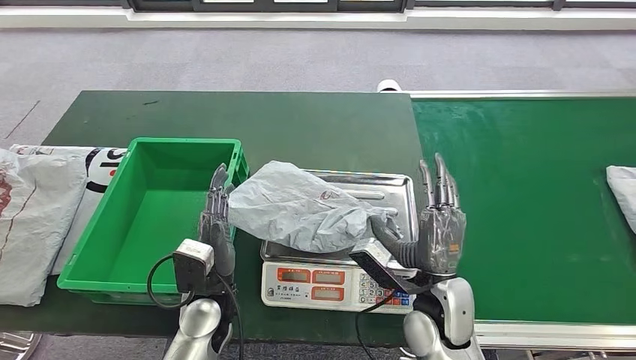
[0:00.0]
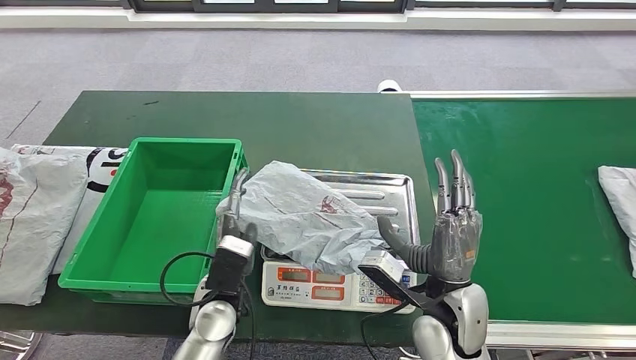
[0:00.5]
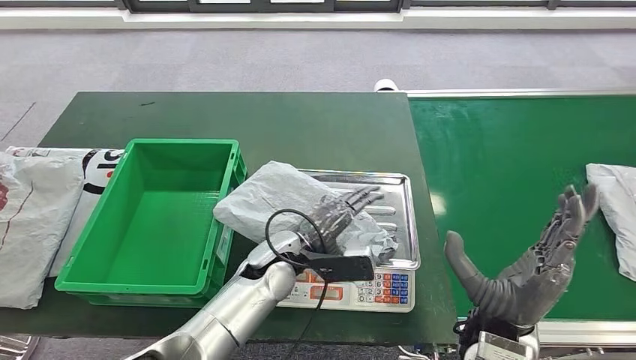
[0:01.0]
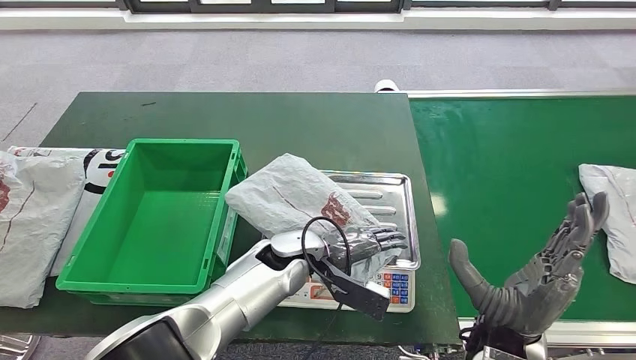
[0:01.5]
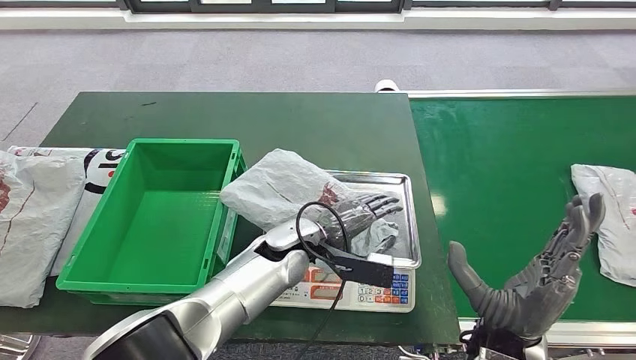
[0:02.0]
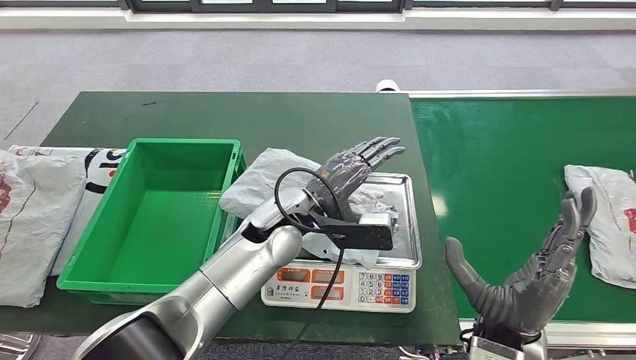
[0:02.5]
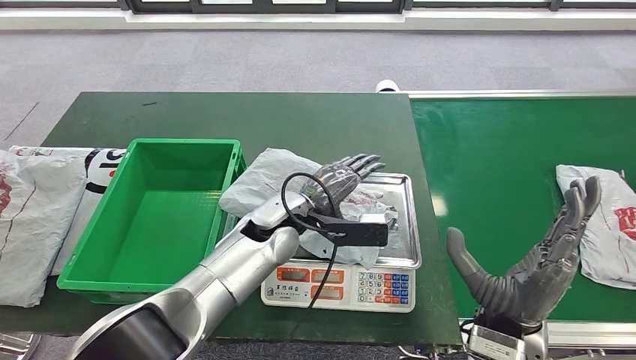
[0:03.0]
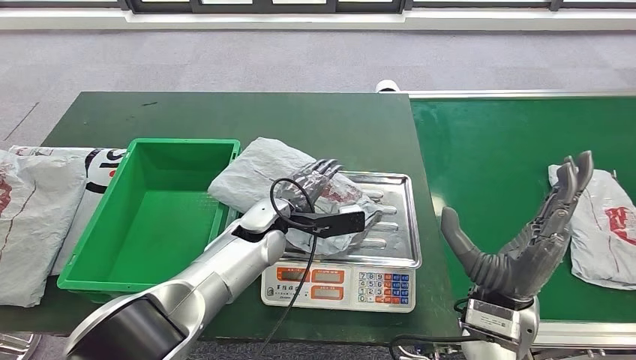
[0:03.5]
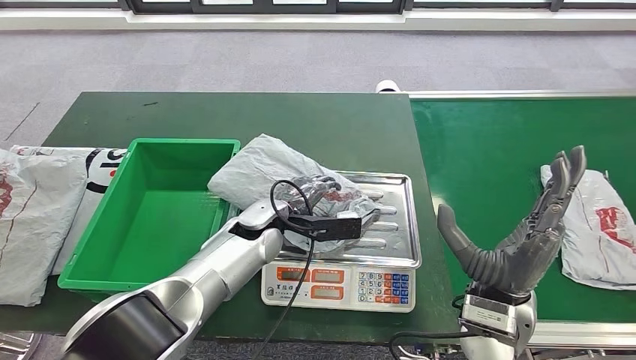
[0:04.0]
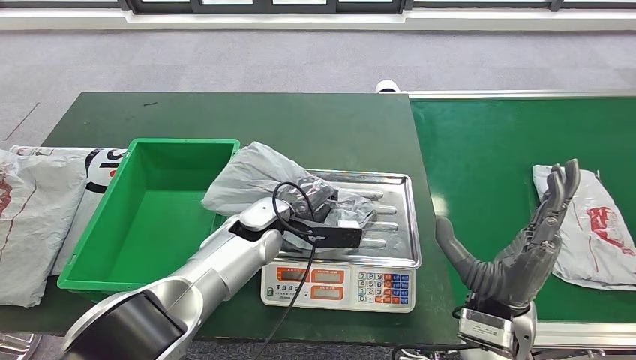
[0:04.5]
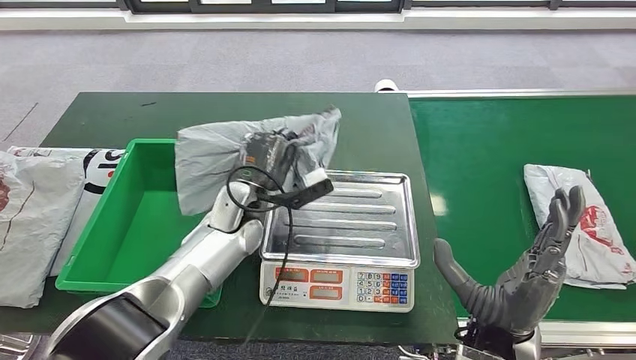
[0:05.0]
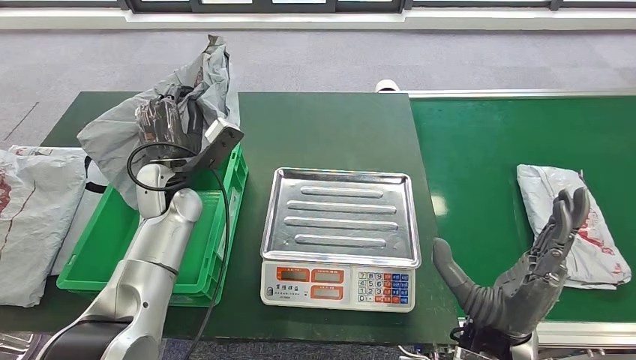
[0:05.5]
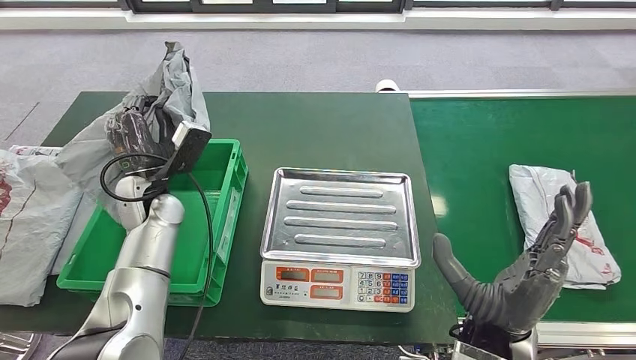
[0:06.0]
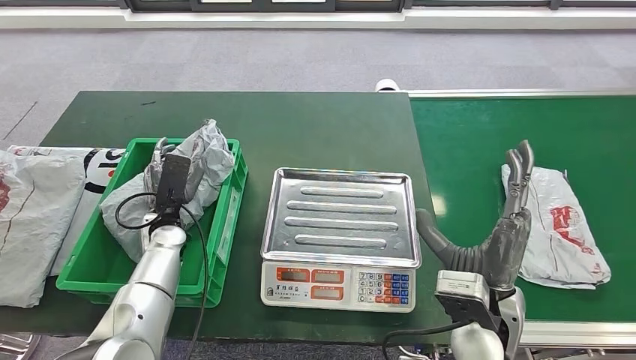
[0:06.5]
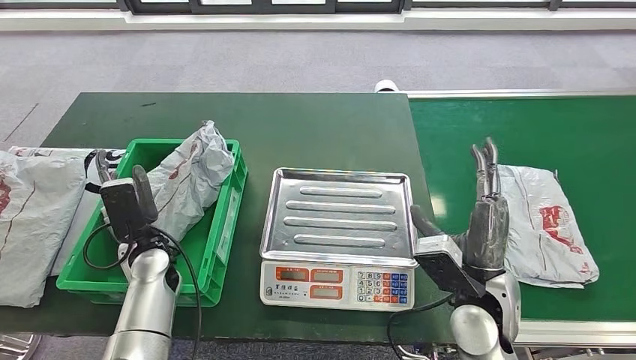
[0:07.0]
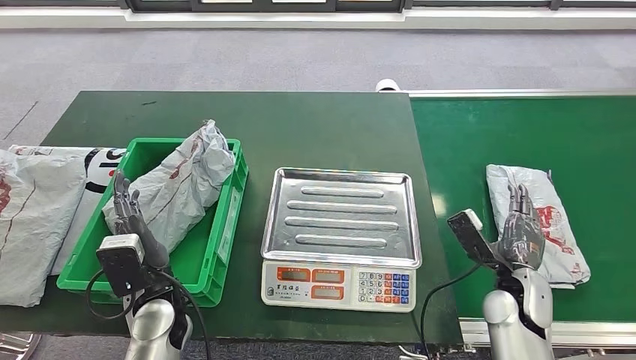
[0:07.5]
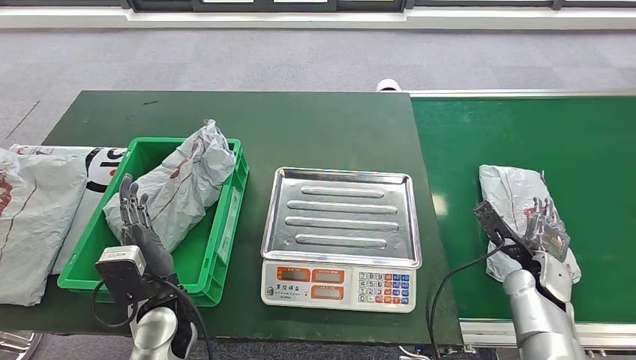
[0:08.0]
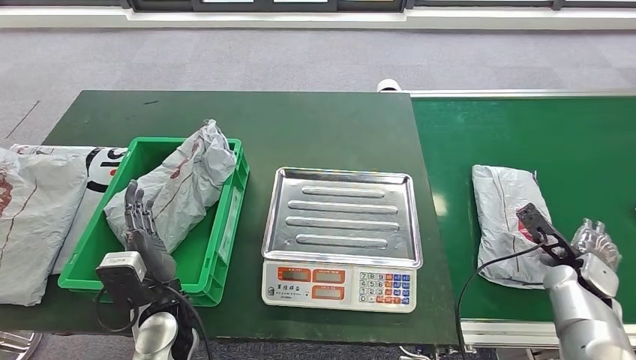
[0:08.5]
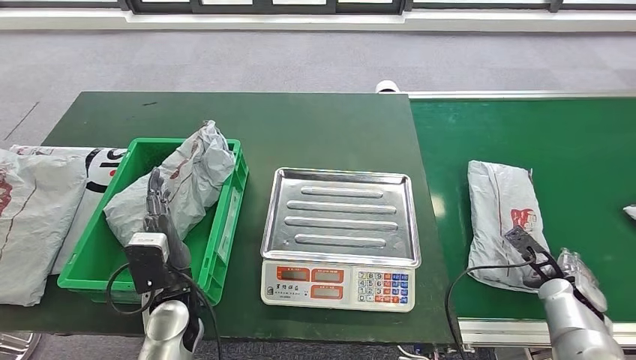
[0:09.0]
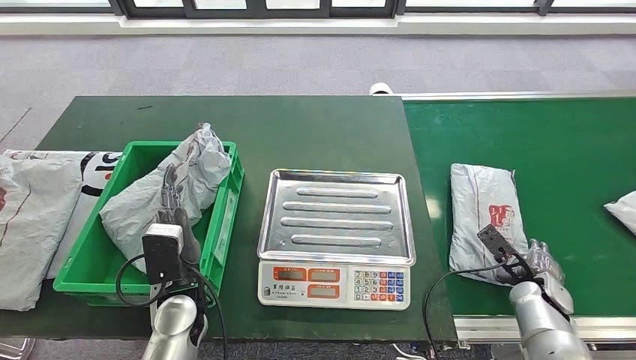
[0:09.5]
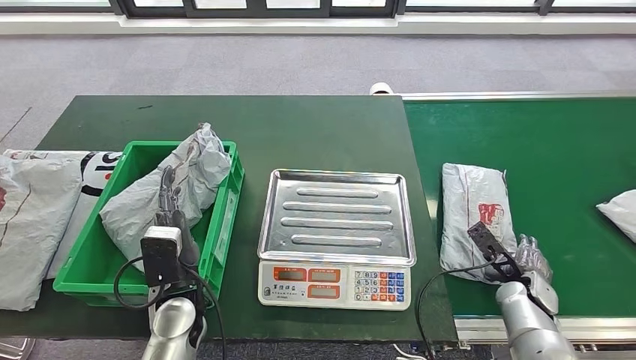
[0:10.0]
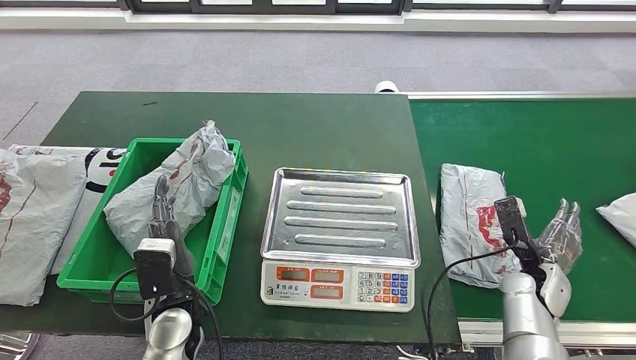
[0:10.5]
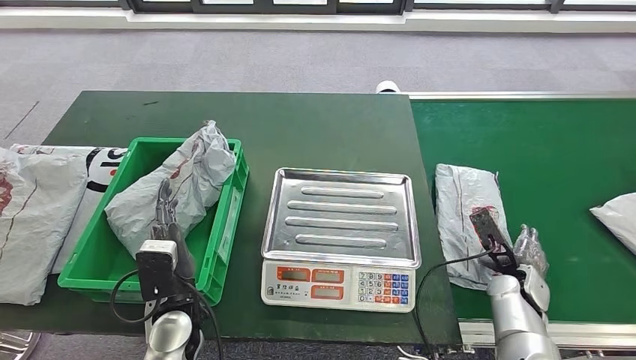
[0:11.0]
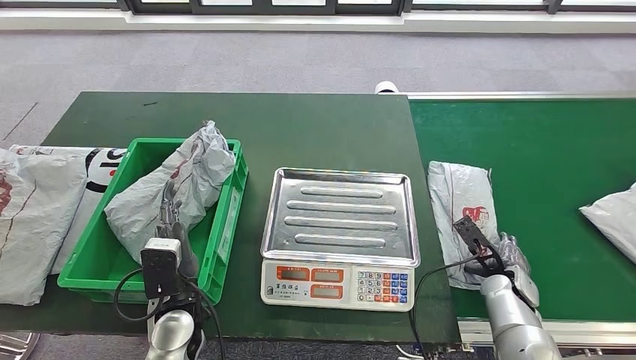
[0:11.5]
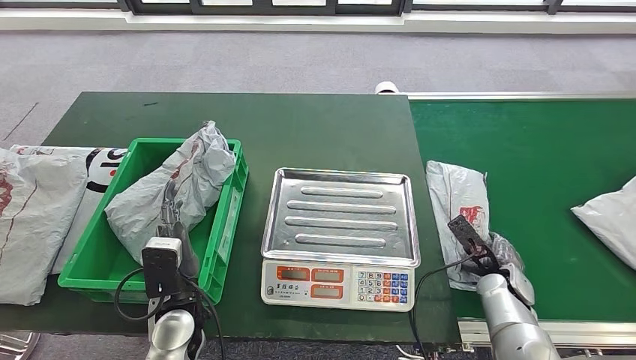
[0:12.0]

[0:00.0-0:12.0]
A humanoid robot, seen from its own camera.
Step, 0:00.0 to 0:05.5: Pick up the parcel from the inbound machine.
Step, 0:06.0 to 0:07.5: Put the parcel inside the courier box.

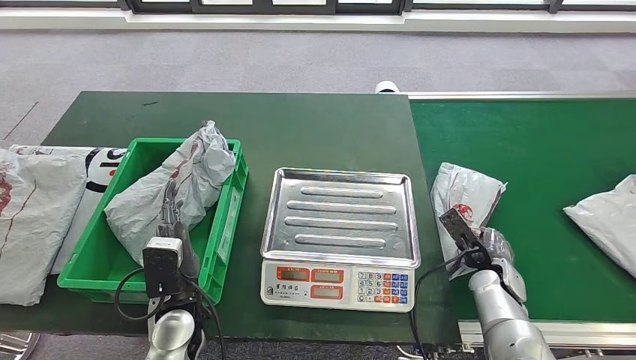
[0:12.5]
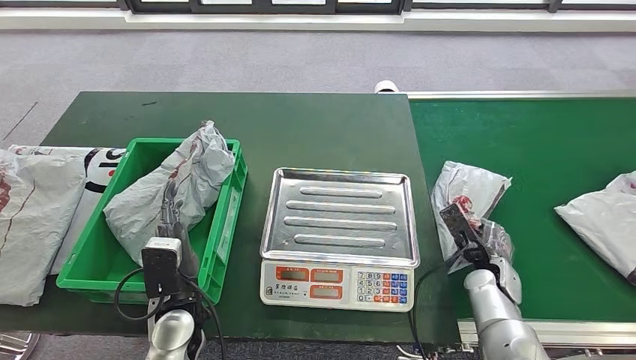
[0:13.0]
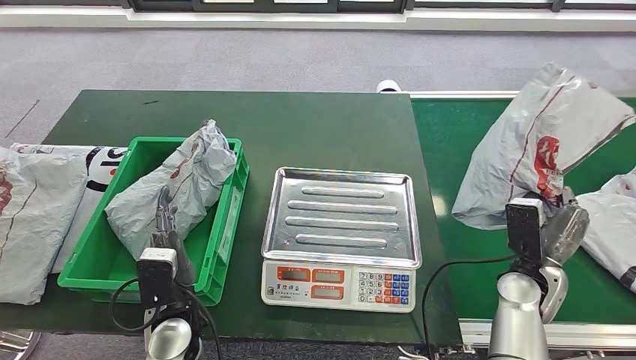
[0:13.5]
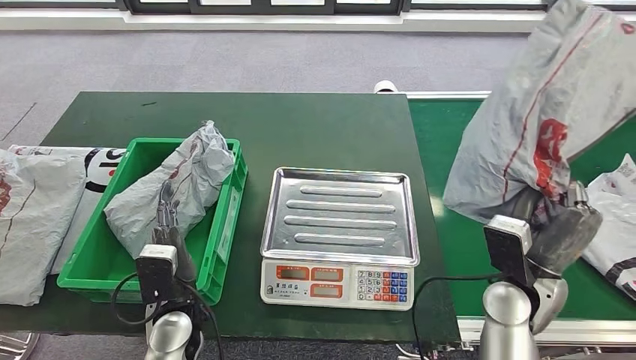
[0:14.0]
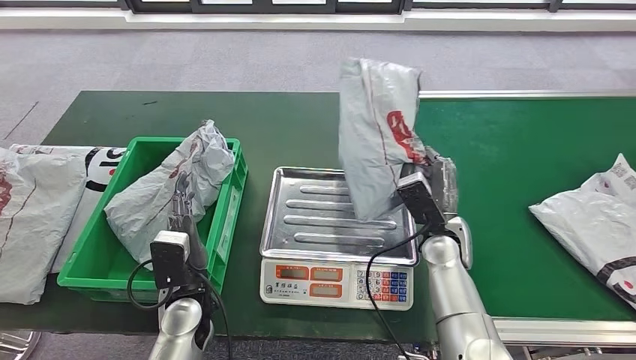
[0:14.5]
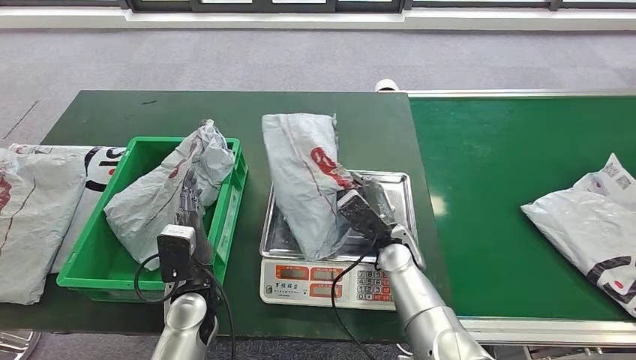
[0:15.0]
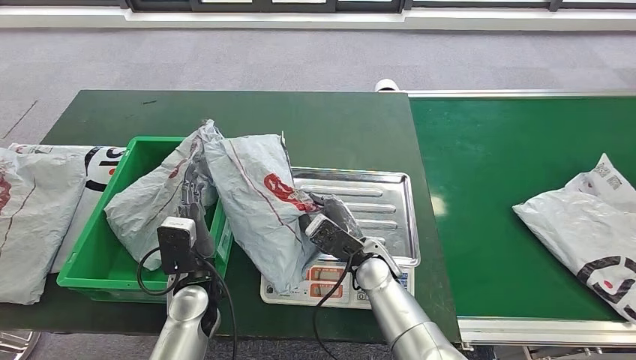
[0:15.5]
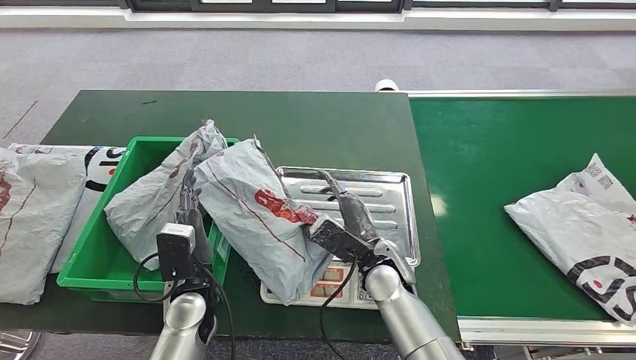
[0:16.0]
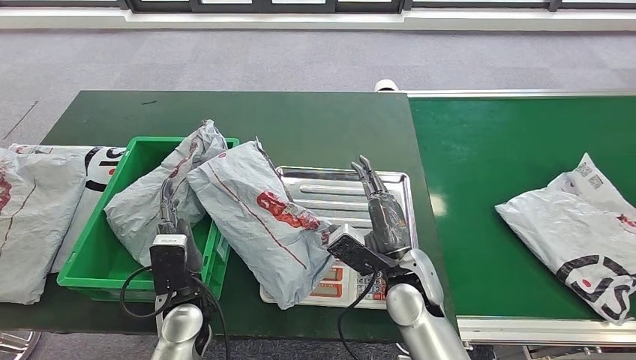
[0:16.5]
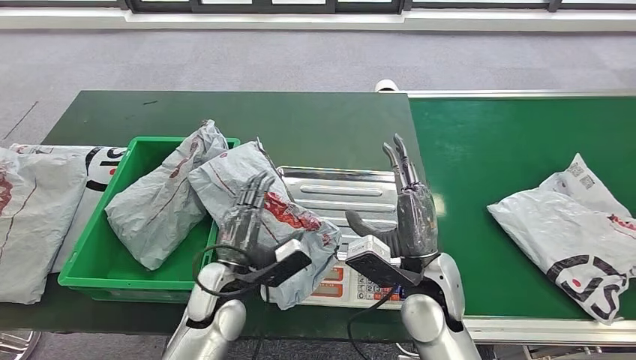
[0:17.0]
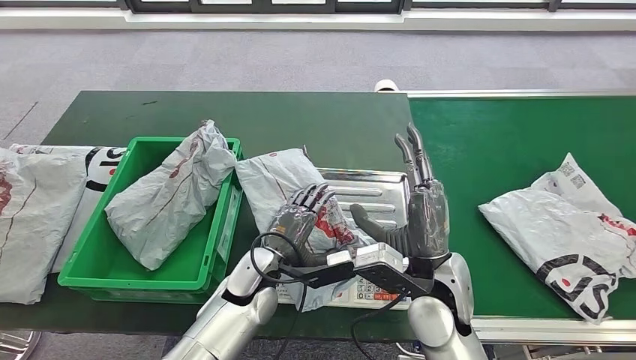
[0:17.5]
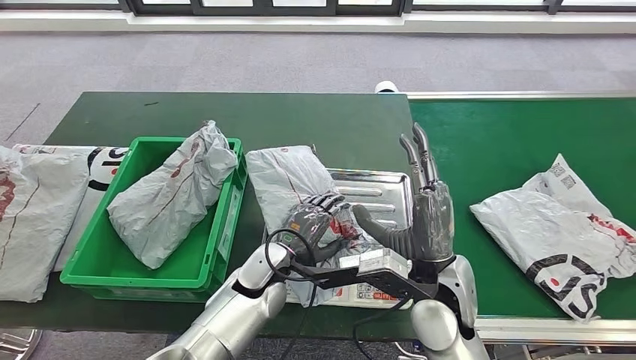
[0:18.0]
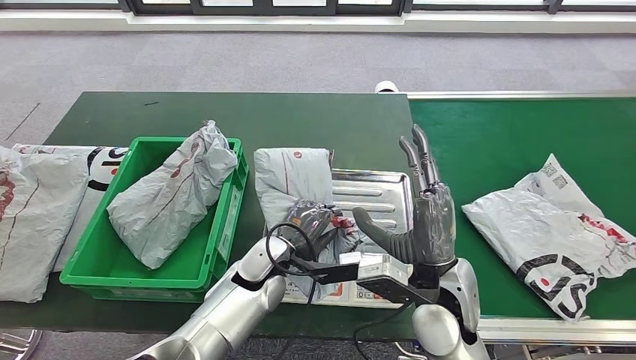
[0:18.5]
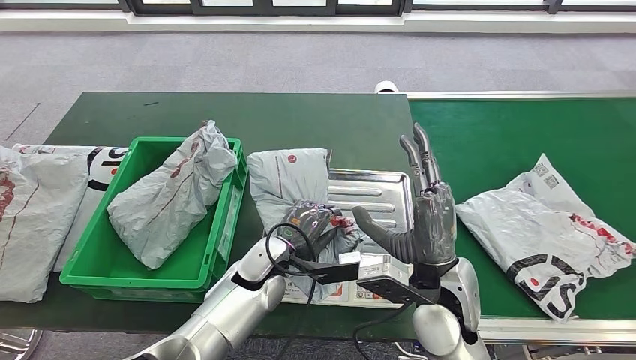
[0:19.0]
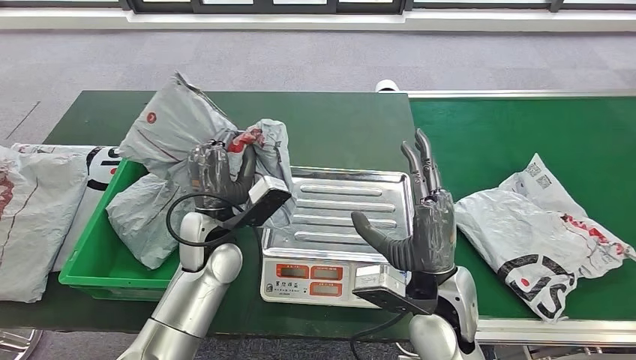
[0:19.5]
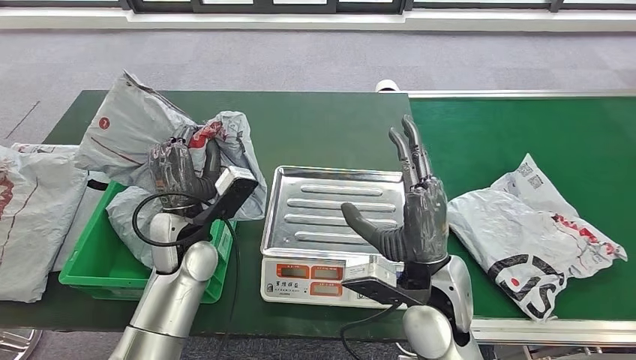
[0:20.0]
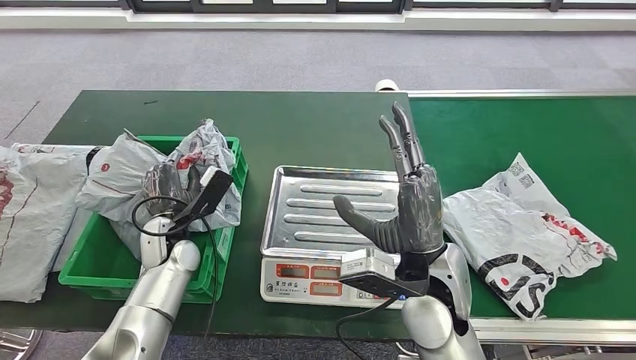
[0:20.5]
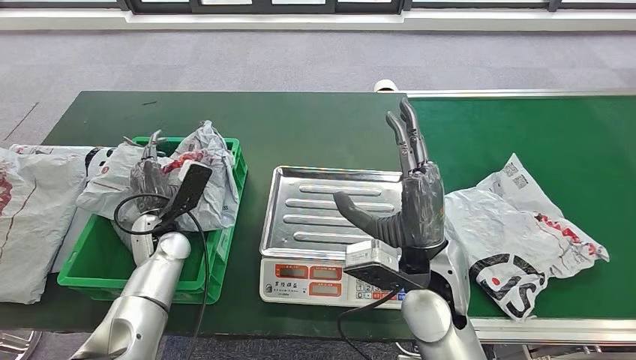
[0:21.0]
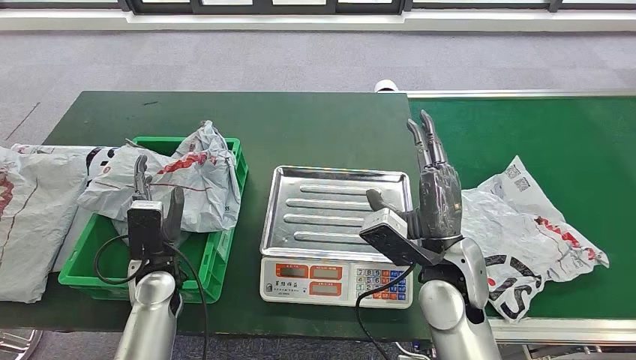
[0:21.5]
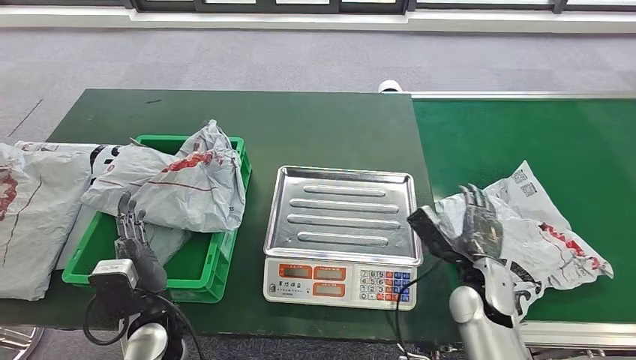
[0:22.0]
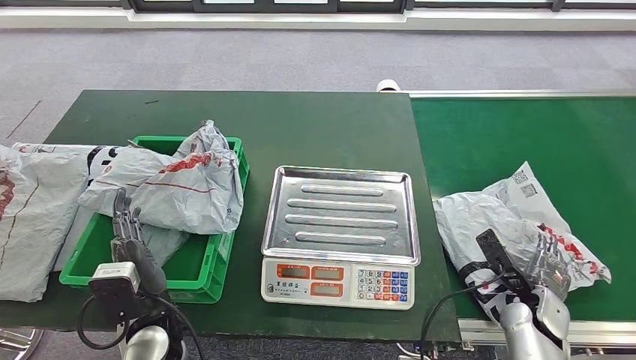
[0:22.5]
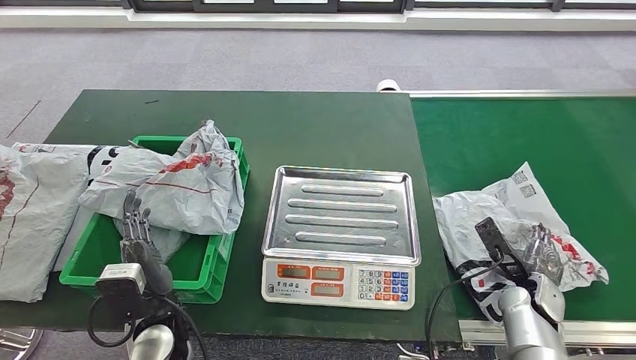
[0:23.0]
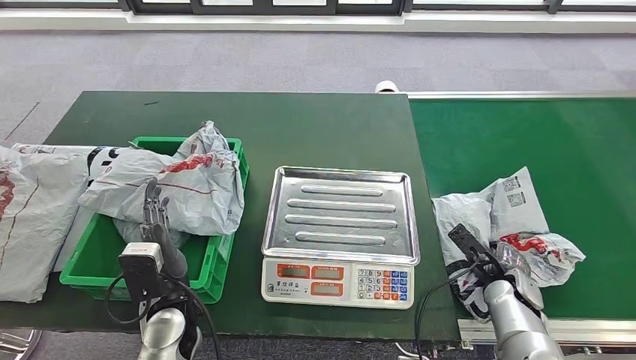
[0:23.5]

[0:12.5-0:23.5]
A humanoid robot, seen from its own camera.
Step, 0:14.5 to 0:16.5: Place the parcel onto the inbound machine.
Step, 0:17.0 to 0:20.0: Pick up the parcel from the inbound machine.
Step, 0:20.5 to 0:22.5: Place the parcel into the delivery box.
